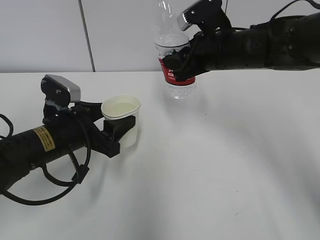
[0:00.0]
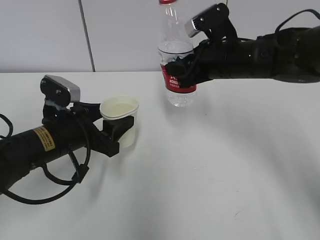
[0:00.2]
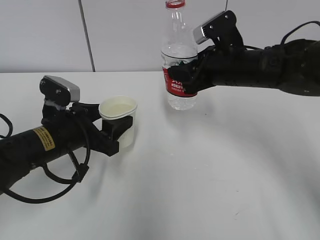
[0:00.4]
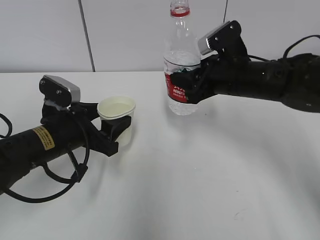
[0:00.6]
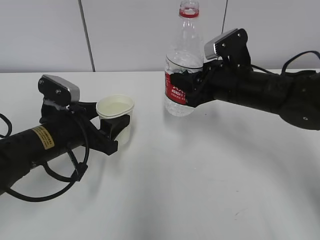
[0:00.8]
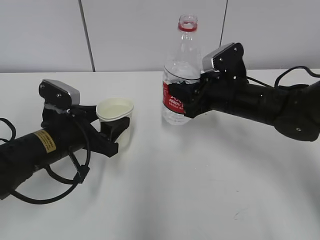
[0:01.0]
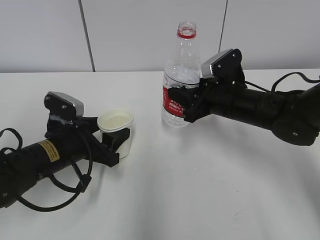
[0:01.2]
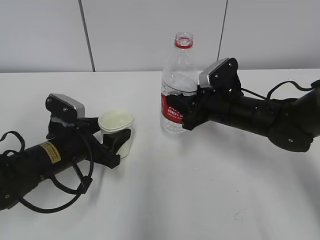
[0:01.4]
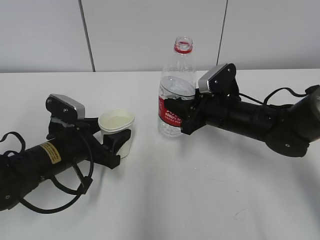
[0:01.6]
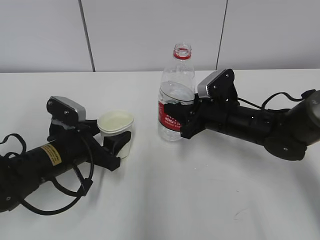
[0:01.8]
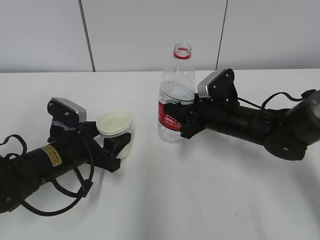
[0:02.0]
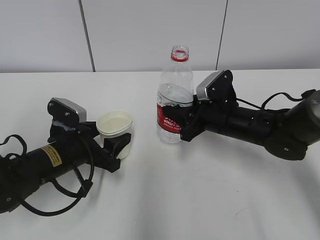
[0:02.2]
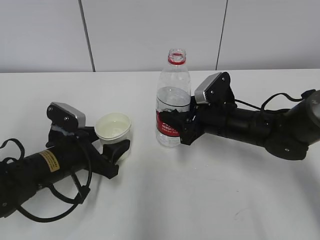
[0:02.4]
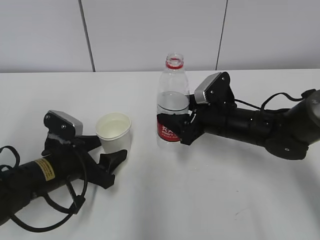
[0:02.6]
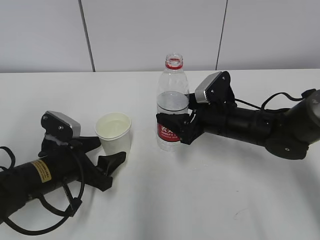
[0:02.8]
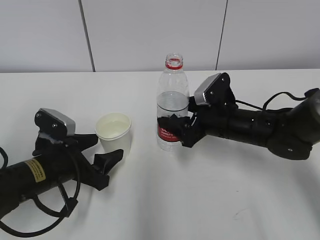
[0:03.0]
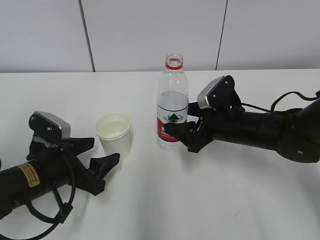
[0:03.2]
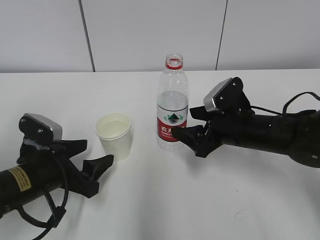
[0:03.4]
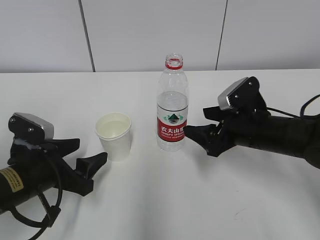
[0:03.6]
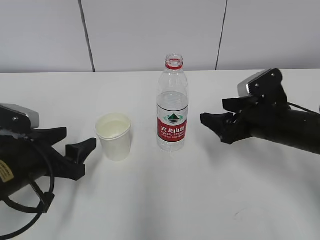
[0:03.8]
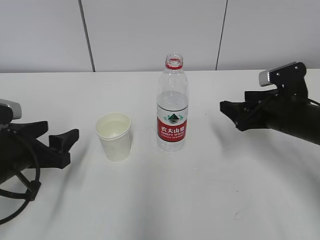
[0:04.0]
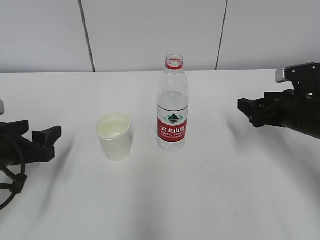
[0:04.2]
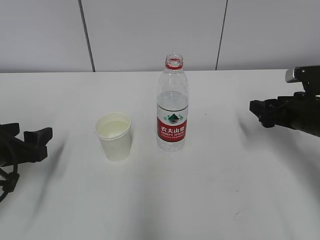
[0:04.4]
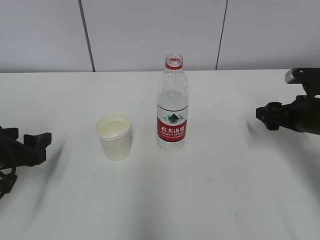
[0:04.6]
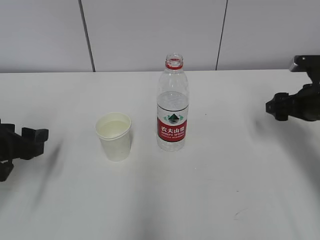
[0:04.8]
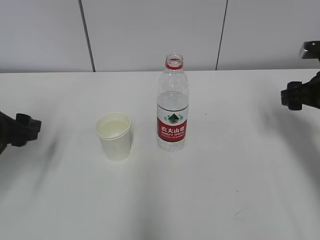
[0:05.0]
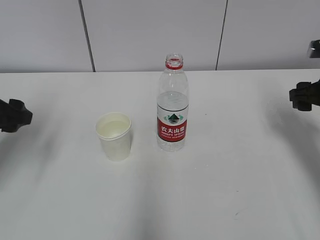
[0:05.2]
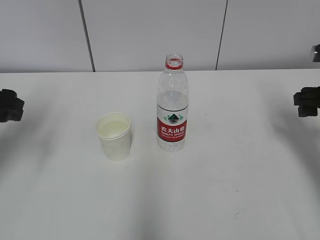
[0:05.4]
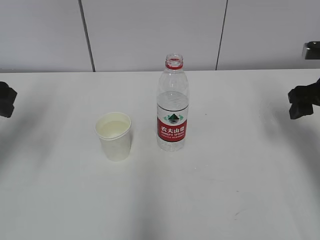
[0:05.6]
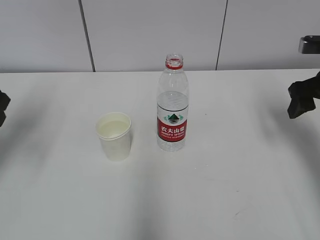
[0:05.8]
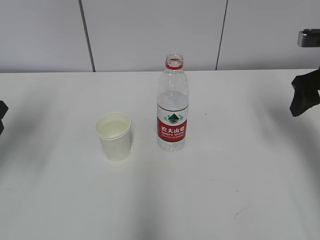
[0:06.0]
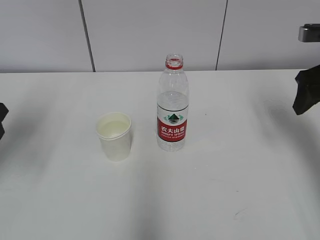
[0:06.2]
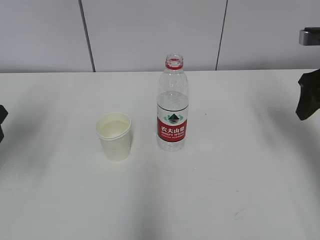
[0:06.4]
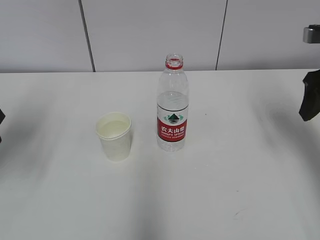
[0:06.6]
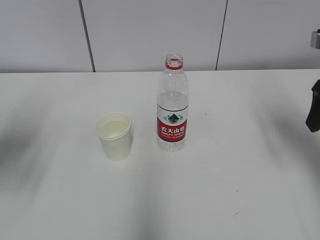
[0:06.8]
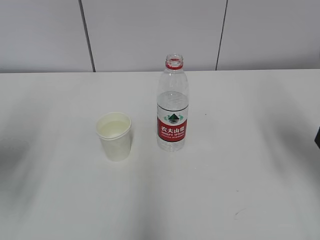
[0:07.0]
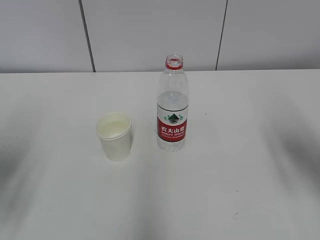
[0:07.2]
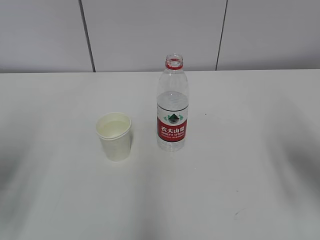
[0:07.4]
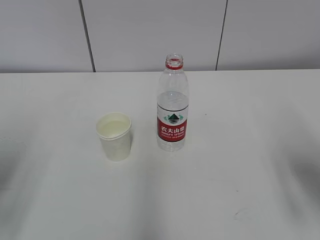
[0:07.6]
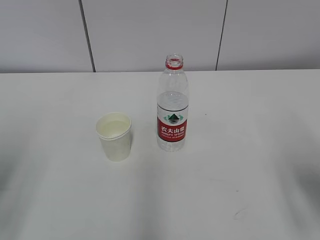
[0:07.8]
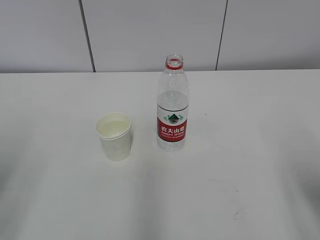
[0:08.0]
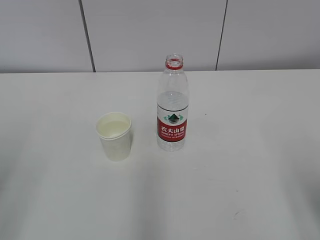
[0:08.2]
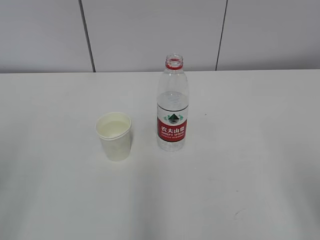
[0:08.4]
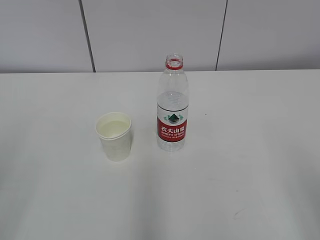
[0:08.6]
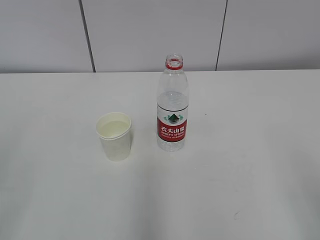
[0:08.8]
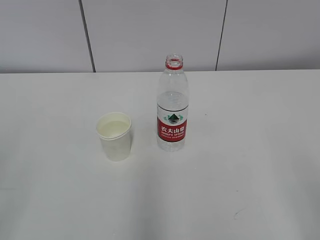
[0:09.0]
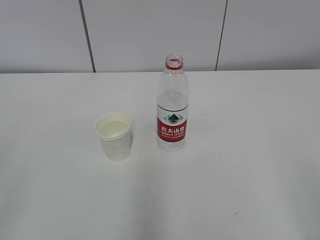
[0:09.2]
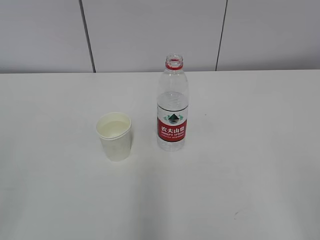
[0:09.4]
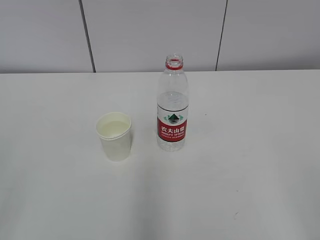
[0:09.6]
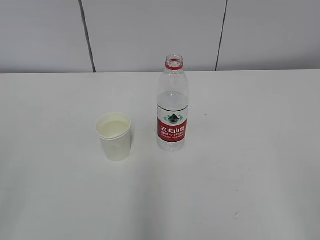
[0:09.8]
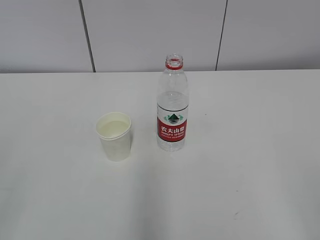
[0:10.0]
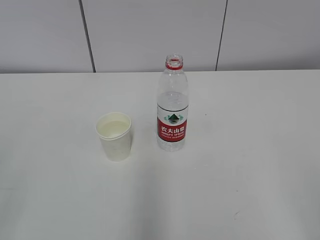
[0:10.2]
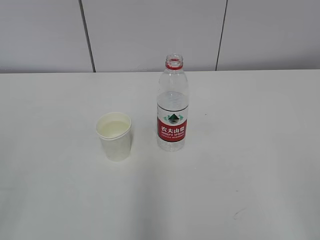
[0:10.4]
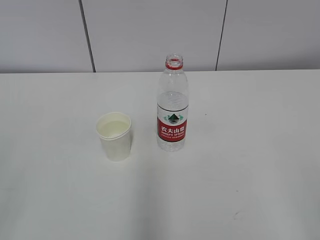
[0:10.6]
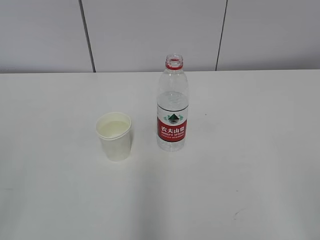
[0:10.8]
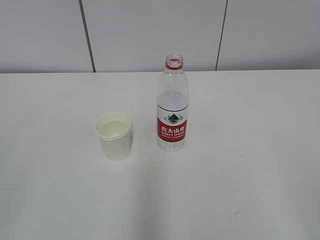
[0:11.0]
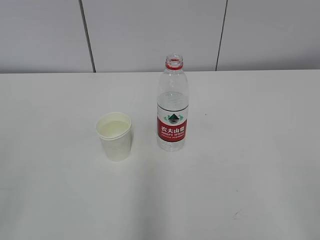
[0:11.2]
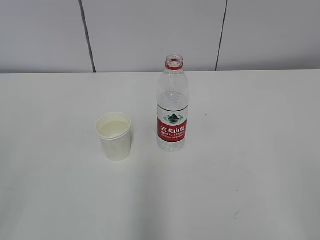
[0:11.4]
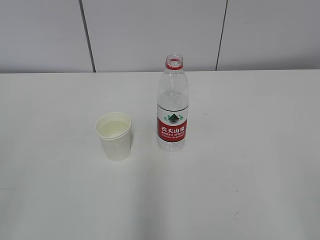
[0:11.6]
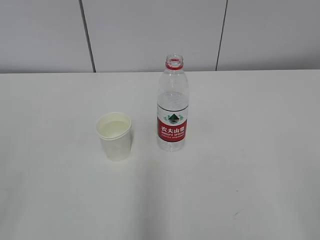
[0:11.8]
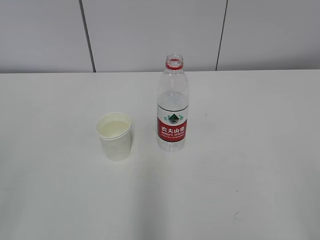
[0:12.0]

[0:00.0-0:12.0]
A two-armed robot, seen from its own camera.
0:00.0 to 0:01.6: The right gripper travels downward by about 10 cm.
0:01.6 to 0:03.0: The right gripper opens up.
0:03.0 to 0:04.4: The right gripper travels to the right by roughly 15 cm; the left gripper heads to the left, covering roughly 10 cm.
0:04.4 to 0:06.0: The grippers both shift upward by about 10 cm.
0:06.0 to 0:07.6: Both grippers move backward, roughly 15 cm.
0:07.6 to 0:09.0: The grippers both shift backward by roughly 15 cm.
0:10.4 to 0:12.0: Neither gripper changes place.

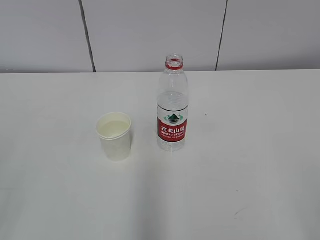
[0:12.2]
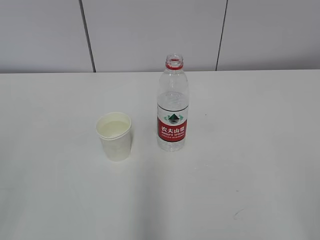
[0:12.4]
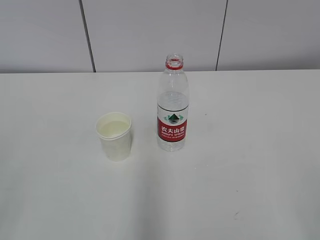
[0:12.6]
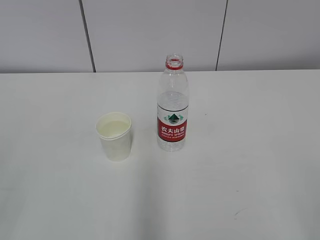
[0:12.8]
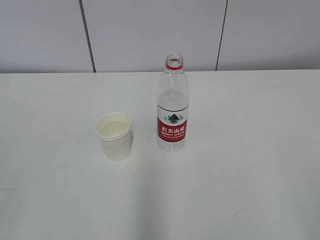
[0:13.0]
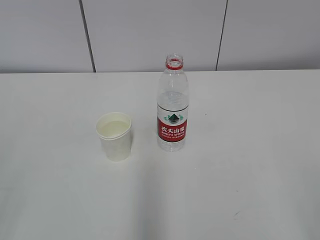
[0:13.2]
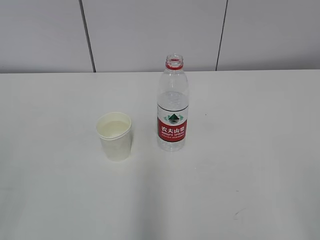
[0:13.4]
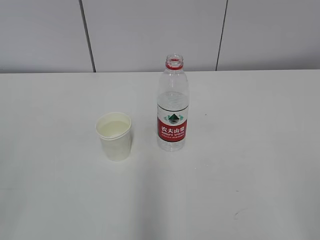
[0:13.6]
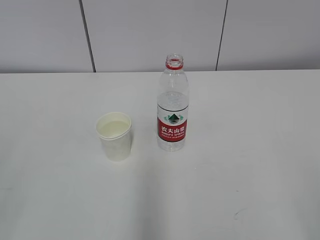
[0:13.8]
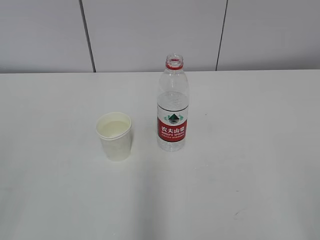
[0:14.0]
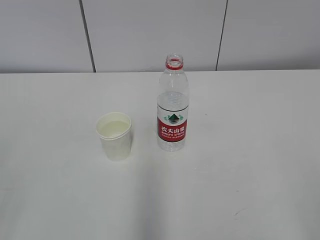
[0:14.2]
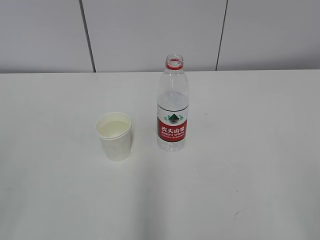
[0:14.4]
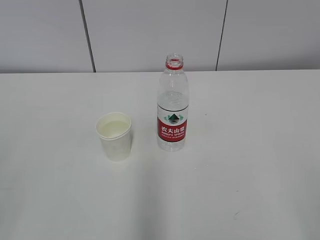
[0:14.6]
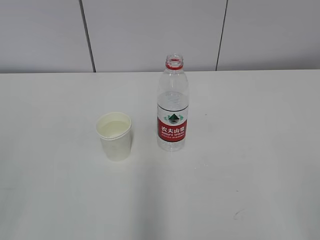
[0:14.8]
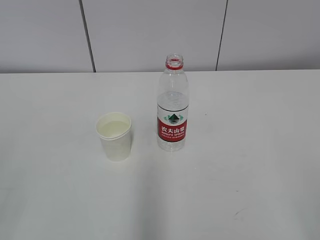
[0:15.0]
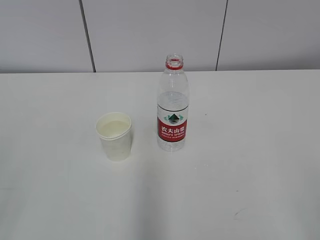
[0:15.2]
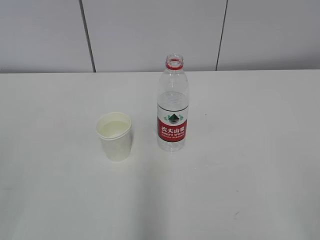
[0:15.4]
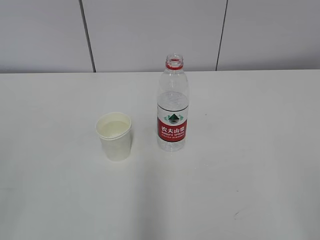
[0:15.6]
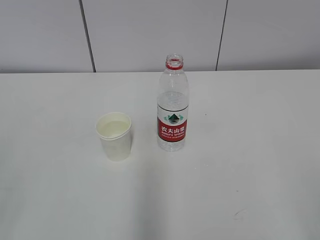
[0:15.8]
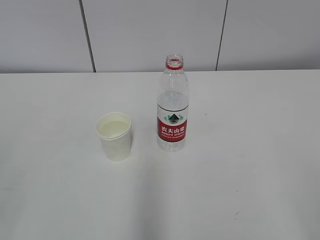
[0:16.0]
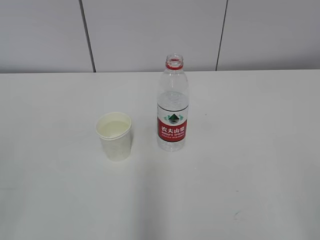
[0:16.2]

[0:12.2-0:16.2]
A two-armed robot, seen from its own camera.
0:12.2 to 0:16.2: The two grippers keep their place.

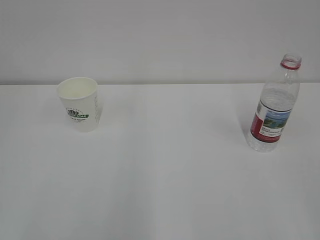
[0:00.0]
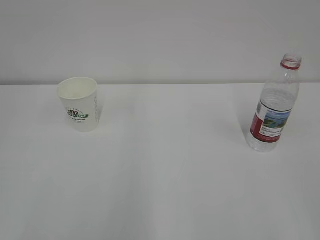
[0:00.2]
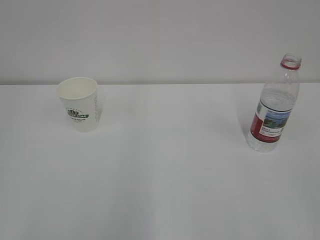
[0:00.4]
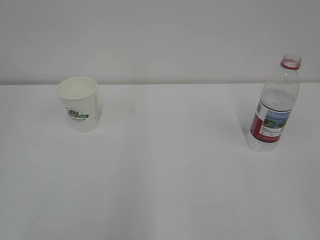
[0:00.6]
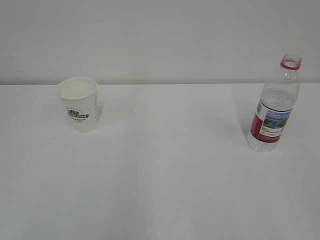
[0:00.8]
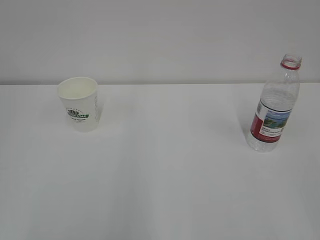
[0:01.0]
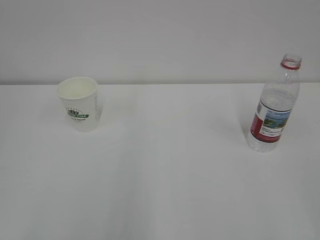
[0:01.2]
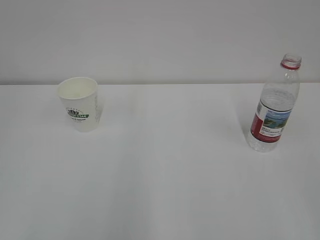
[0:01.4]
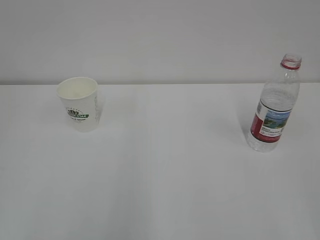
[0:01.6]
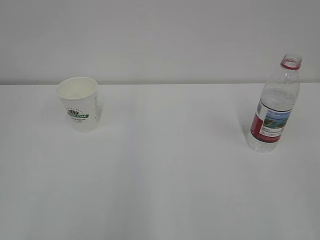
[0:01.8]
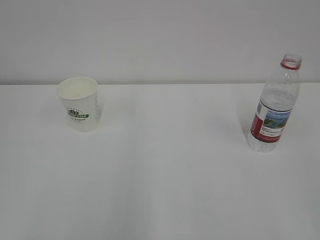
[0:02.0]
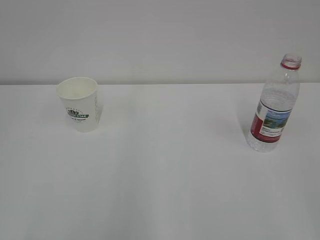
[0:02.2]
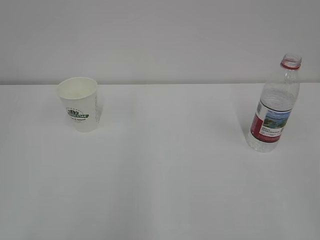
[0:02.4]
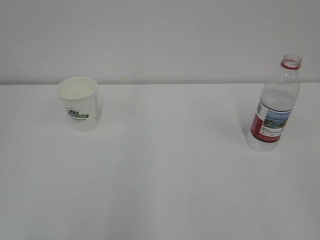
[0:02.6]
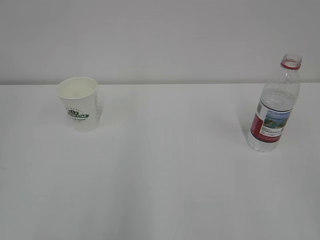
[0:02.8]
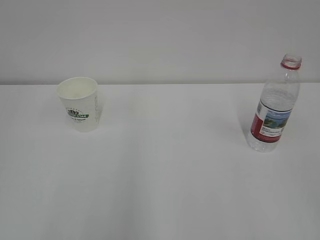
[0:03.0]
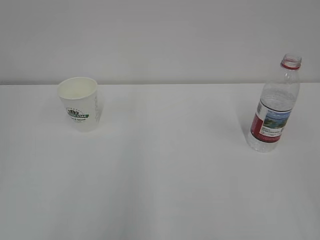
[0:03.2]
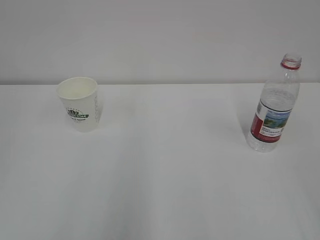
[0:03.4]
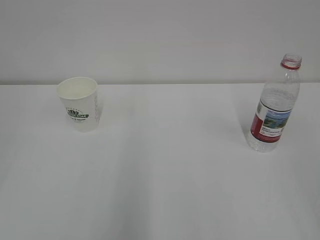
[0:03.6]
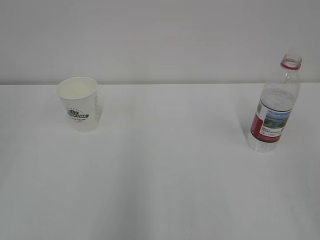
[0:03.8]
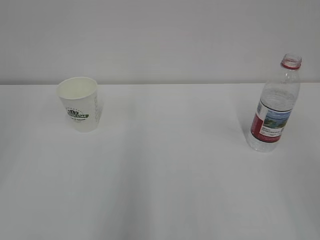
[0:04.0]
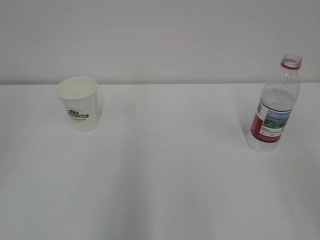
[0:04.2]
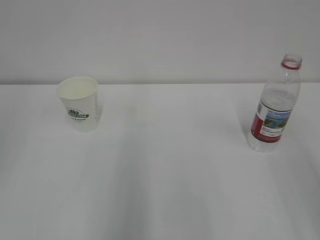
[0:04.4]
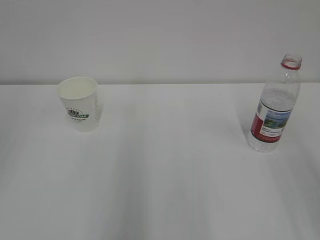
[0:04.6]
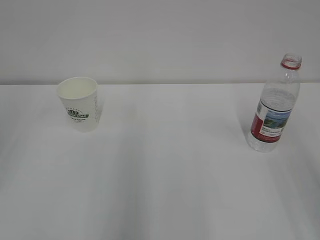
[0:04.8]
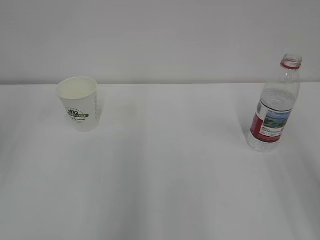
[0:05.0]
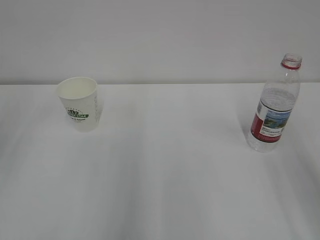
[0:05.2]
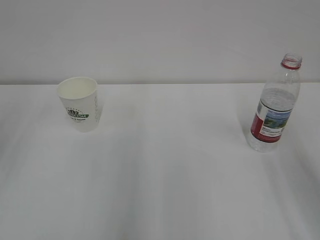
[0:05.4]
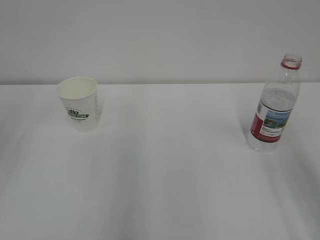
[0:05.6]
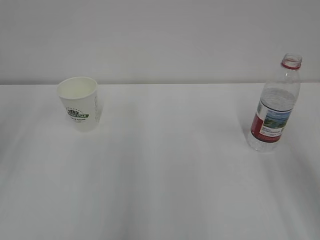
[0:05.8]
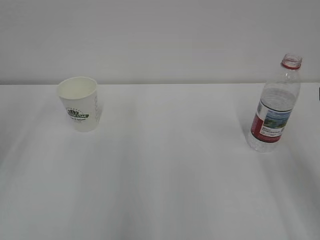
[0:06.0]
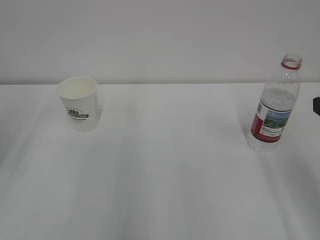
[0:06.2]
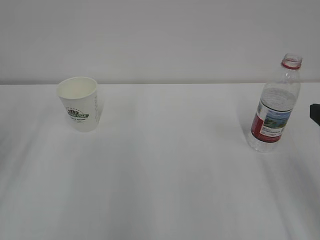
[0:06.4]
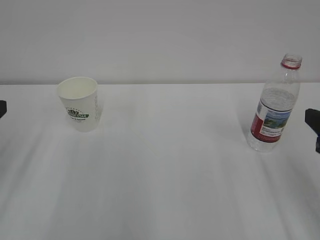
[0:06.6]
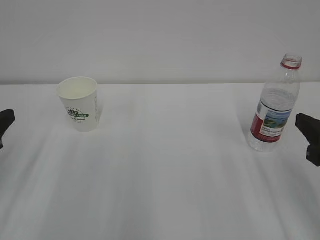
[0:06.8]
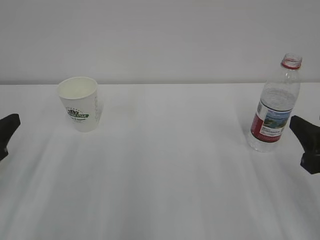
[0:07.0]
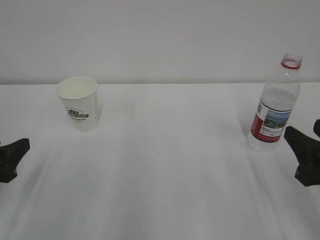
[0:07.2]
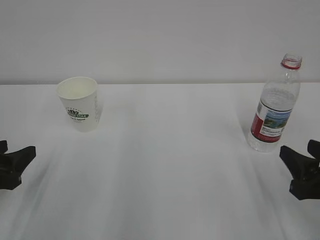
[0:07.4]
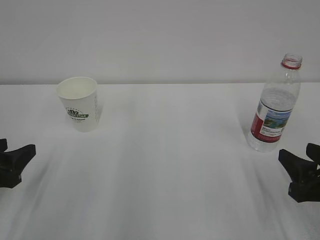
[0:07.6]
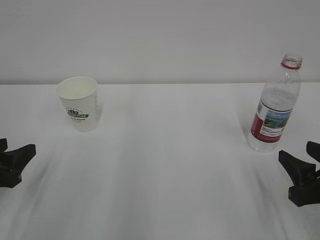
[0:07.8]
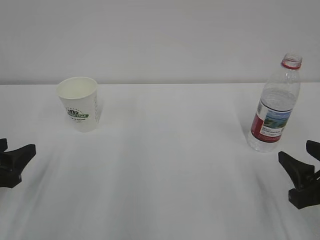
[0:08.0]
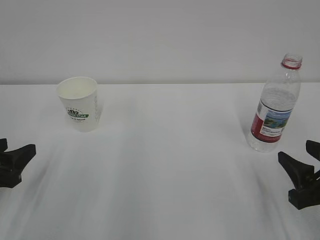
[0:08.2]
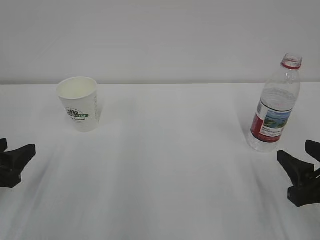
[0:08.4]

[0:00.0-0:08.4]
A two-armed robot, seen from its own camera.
0:05.6 to 0:07.0: Both grippers move downward, some 10 cm.
0:07.0 to 0:08.4: The right gripper goes approximately 5 cm downward.
